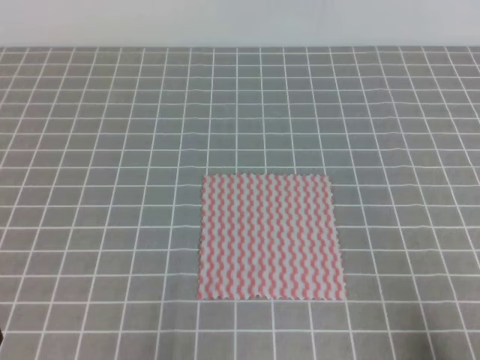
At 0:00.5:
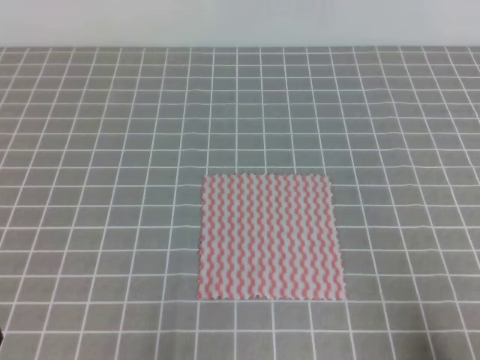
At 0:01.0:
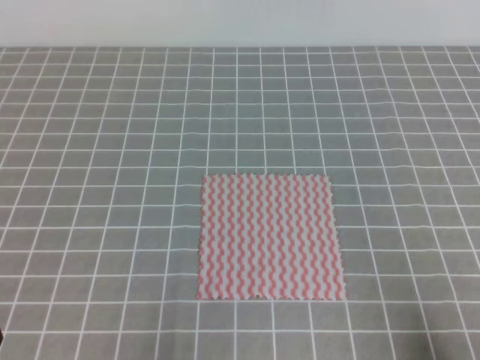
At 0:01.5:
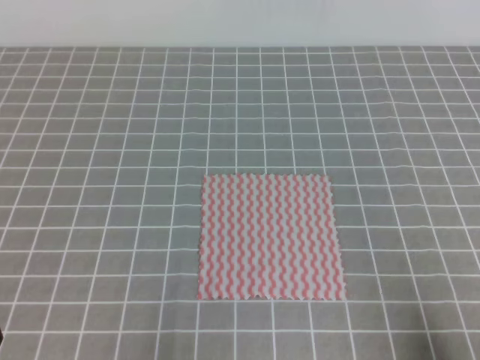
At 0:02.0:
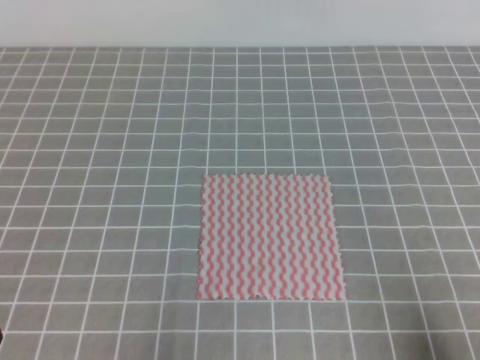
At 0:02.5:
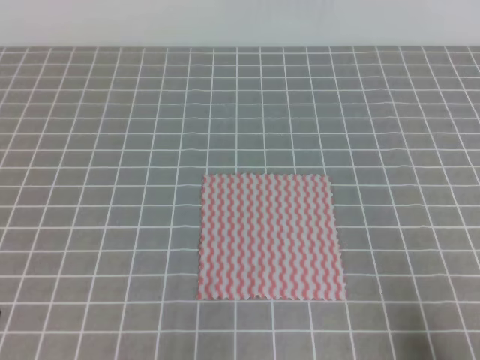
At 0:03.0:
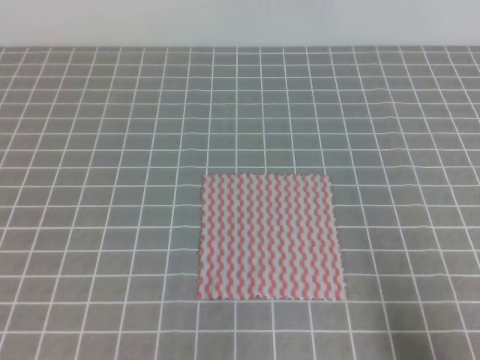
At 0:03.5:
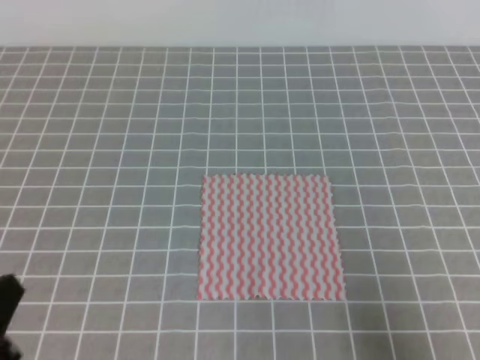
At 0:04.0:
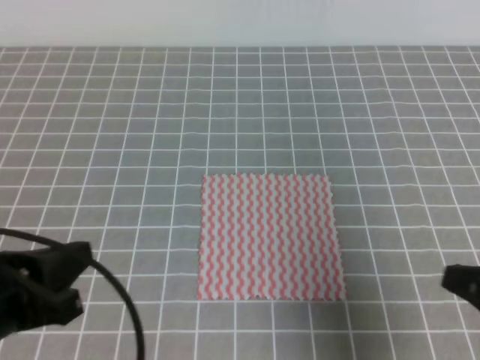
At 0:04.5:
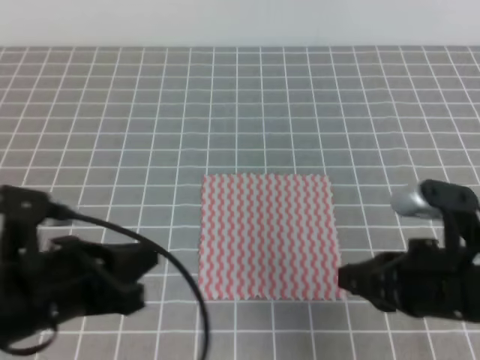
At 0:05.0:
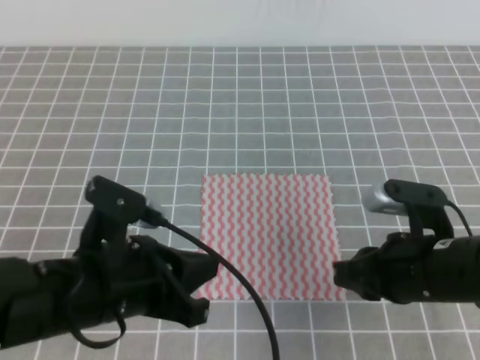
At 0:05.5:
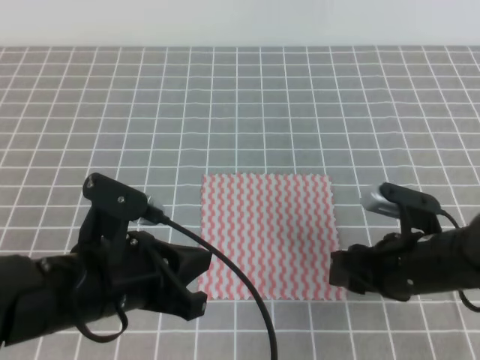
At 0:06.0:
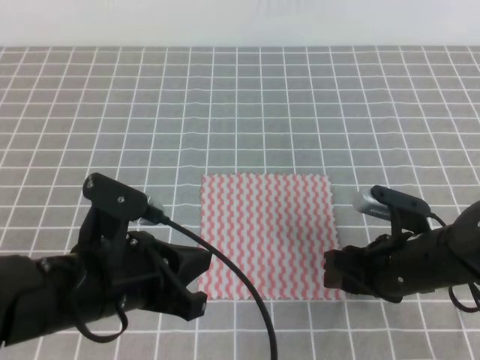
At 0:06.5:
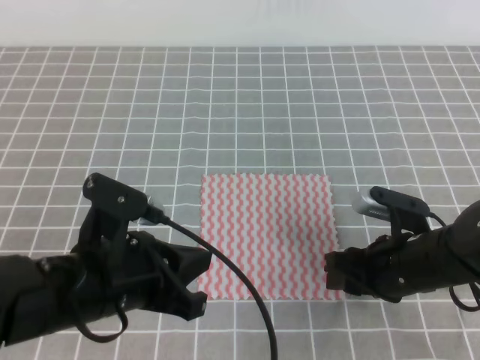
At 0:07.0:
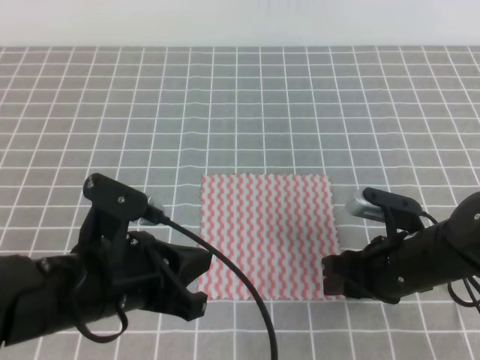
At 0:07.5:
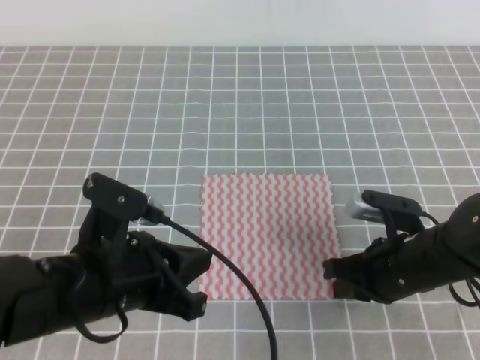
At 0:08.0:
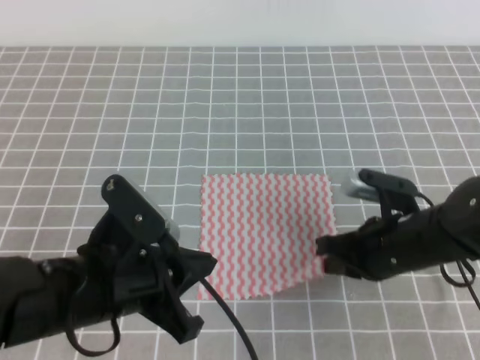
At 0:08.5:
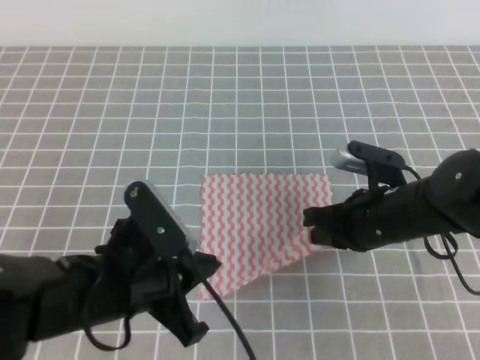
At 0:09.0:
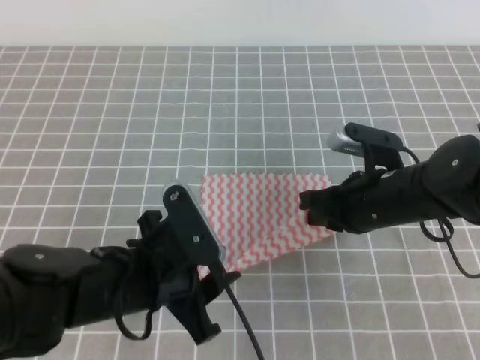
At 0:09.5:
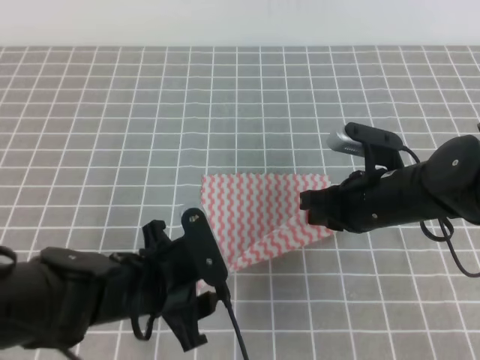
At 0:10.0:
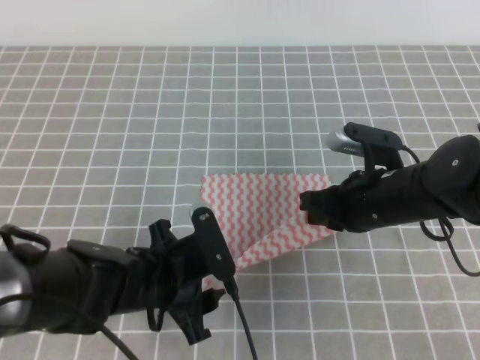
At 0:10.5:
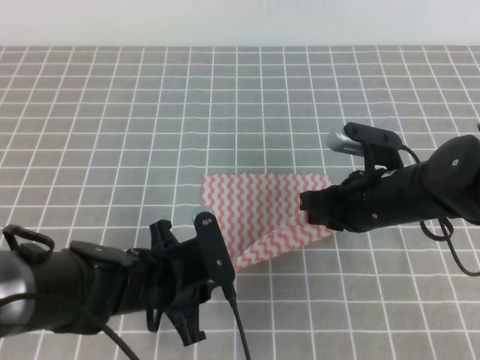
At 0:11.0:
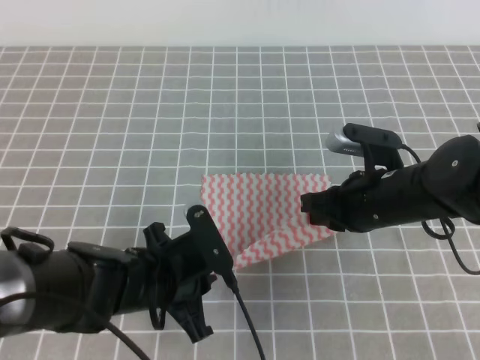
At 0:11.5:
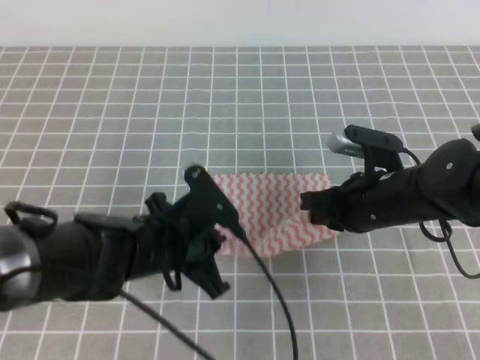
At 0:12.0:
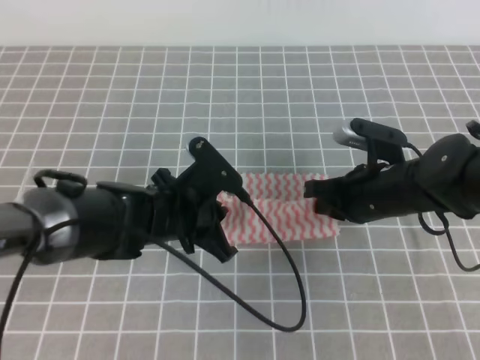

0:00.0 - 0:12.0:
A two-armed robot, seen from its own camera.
0:02.0 - 0:04.0: The left gripper goes about 10 cm upward and forward, while the right gripper travels forward and upward by approximately 10 cm.
0:04.0 - 0:06.0: The right gripper shifts roughly 20 cm forward, downward and to the left, and opens its fingers. The left gripper moves to the right and forward, approximately 10 cm.
0:06.0 - 0:08.0: The right gripper closes its fingers.
0:08.0 - 0:10.0: The left gripper is displaced downward by some 5 cm, and opens; the right gripper ends up some 5 cm from where it was.
0:10.0 - 0:12.0: The left gripper moves forward, about 5 cm, and closes.

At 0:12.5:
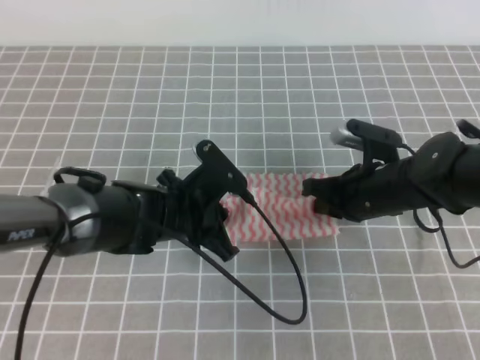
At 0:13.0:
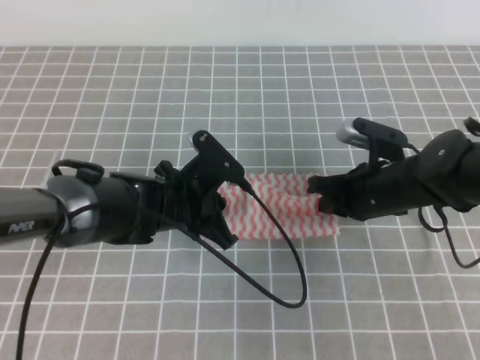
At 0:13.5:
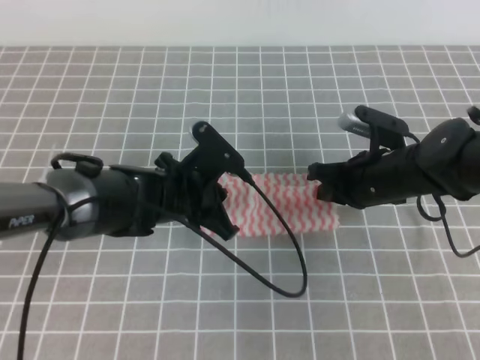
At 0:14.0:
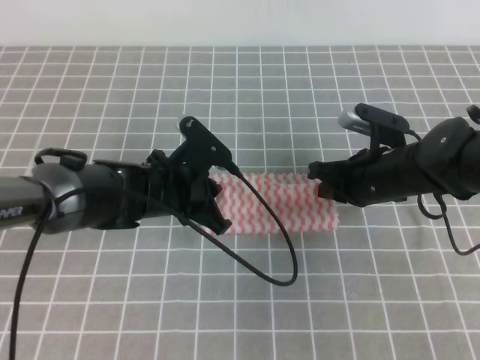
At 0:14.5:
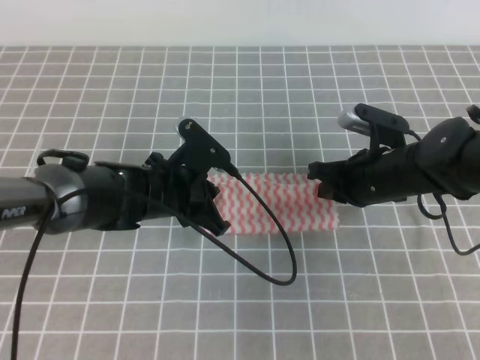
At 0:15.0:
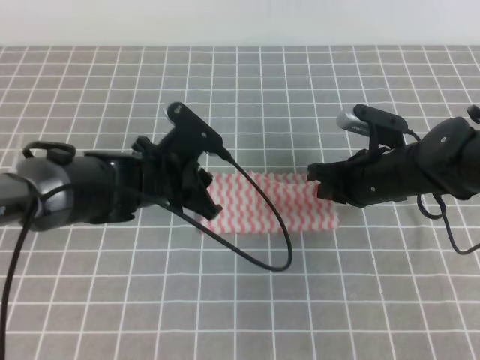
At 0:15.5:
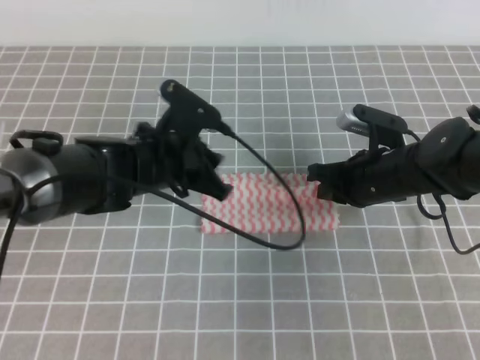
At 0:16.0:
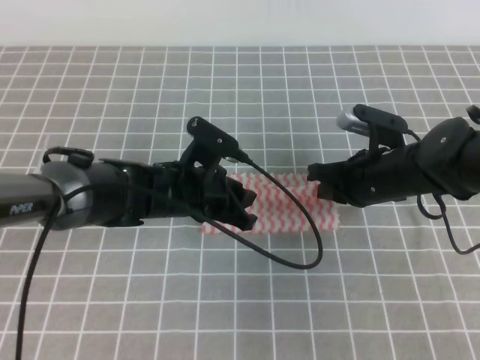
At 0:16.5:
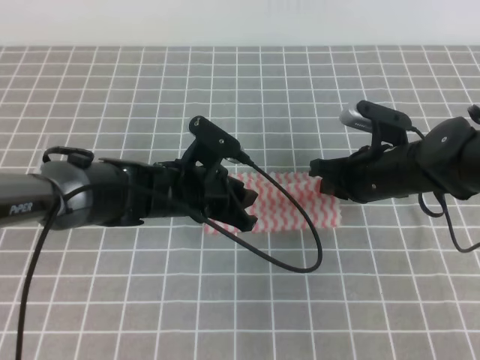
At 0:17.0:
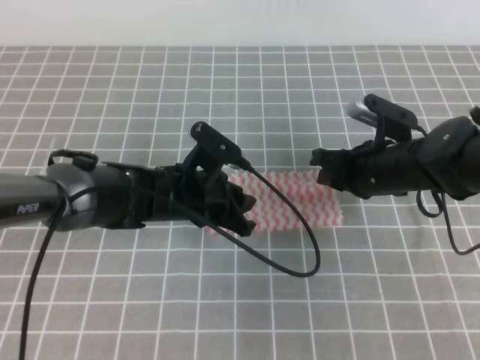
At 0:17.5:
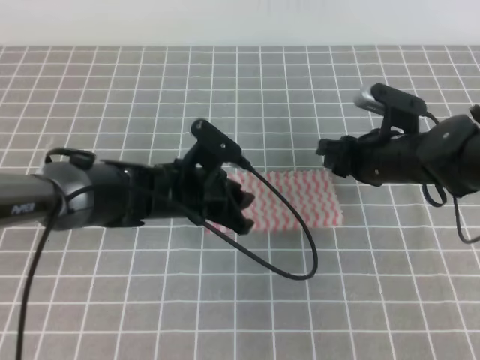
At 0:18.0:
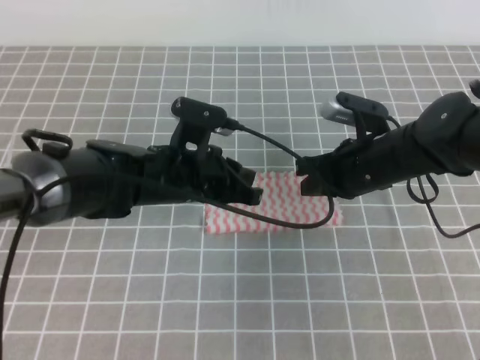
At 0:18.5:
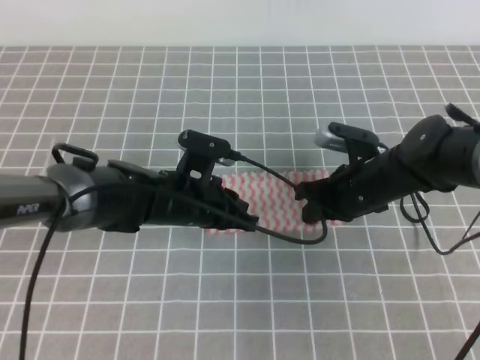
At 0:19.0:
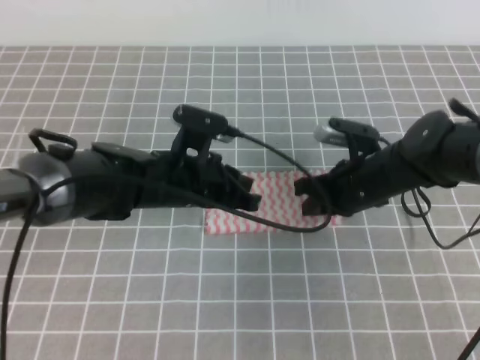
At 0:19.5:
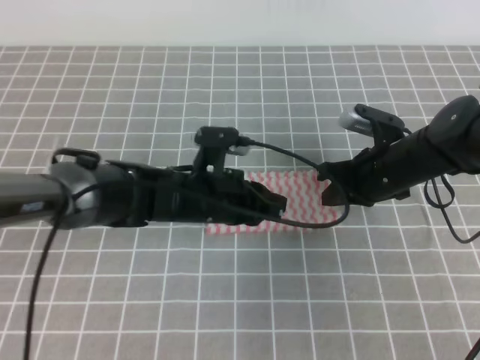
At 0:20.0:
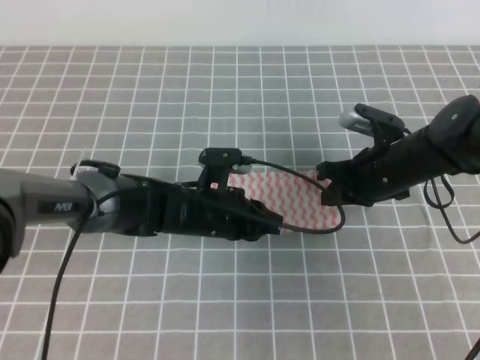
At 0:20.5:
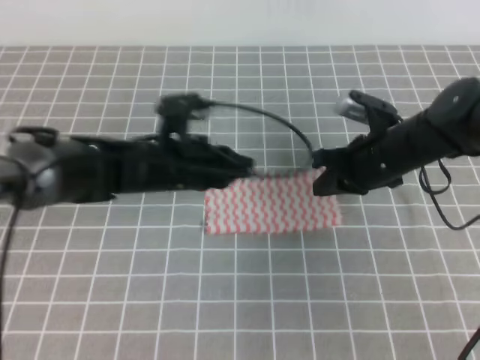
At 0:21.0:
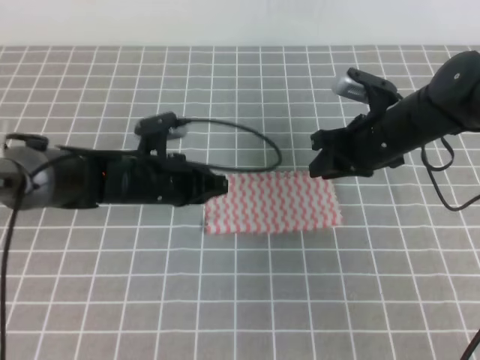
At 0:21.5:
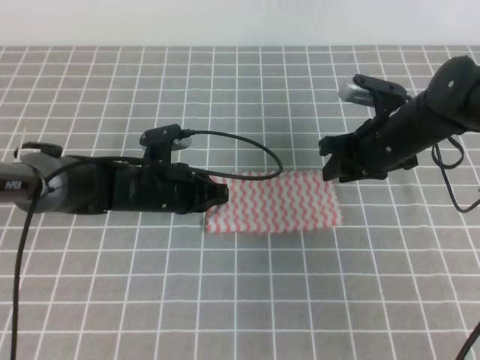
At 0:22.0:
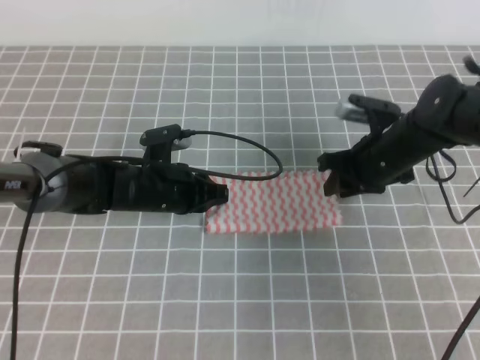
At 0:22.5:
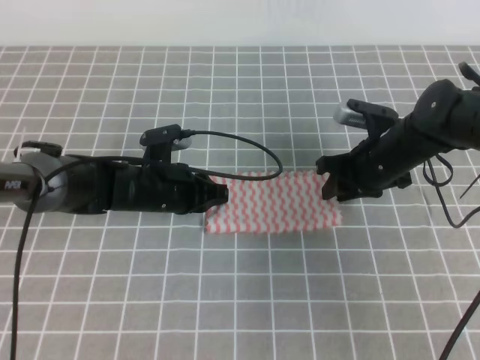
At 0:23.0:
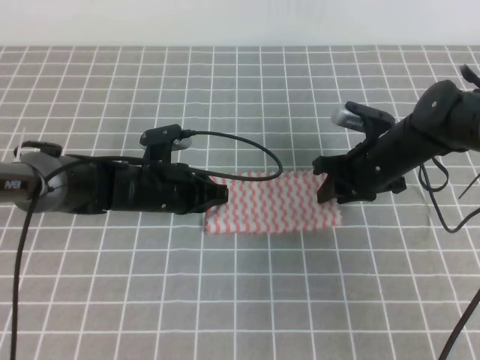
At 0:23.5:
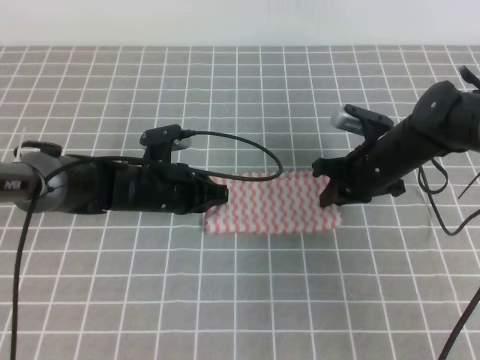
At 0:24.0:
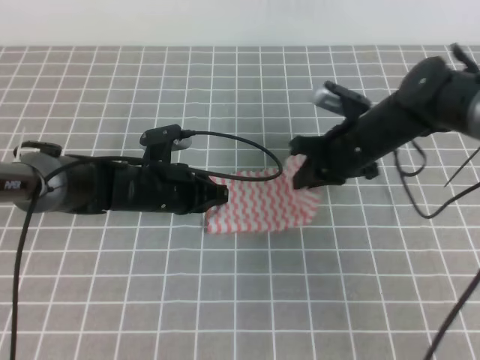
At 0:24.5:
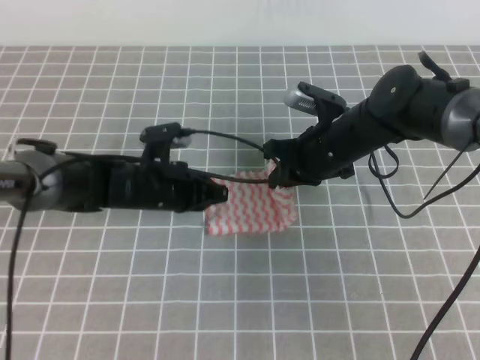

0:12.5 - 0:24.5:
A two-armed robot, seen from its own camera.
0:12.5 - 0:14.5: The grippers move only a little.
0:14.5 - 0:16.5: The left gripper opens up.
0:16.5 - 0:18.5: The left gripper closes up. The right gripper opens, then closes again.
0:20.5 - 0:22.5: The right gripper opens its fingers. The left gripper shifts about 5 cm downward.
0:22.5 - 0:24.5: The right gripper shifts roughly 5 cm to the left, and closes.

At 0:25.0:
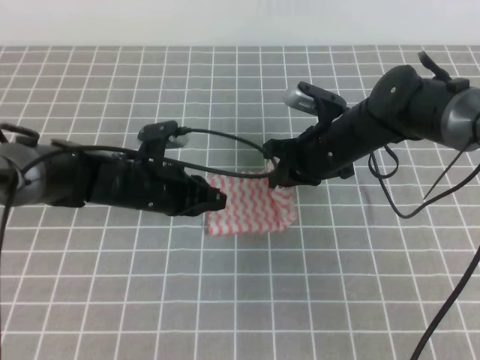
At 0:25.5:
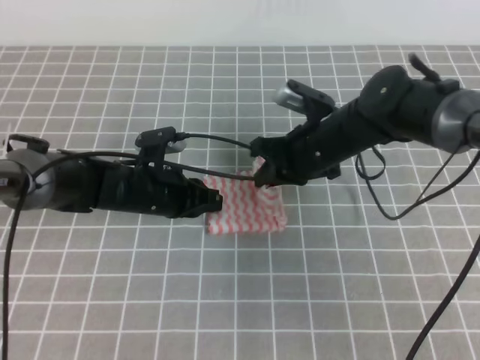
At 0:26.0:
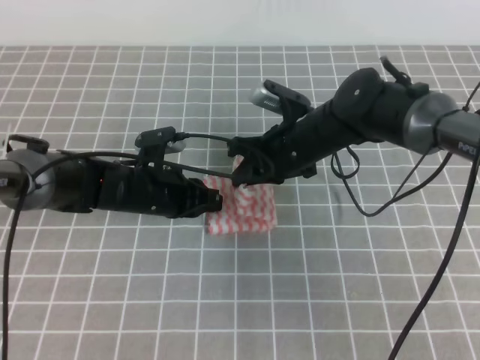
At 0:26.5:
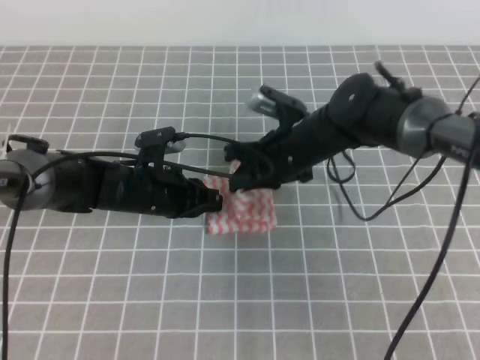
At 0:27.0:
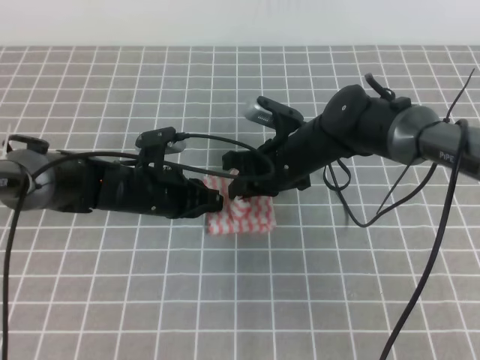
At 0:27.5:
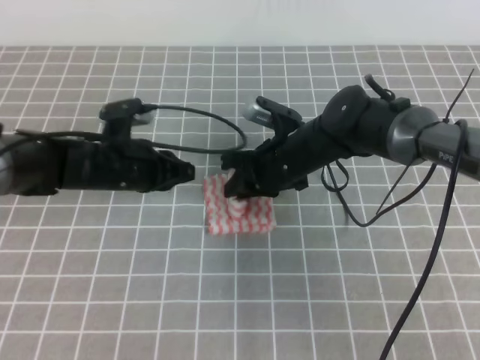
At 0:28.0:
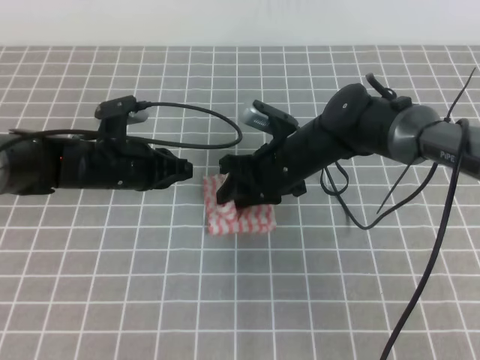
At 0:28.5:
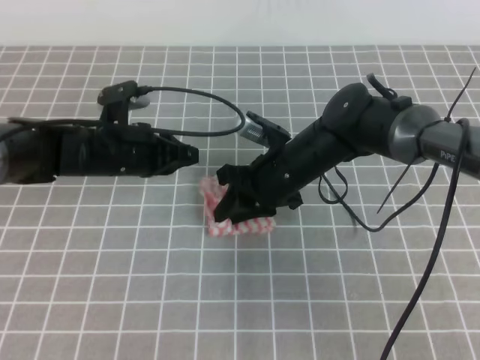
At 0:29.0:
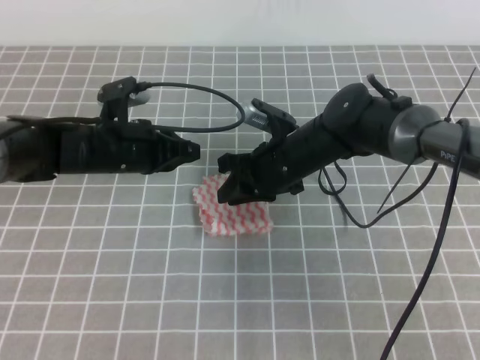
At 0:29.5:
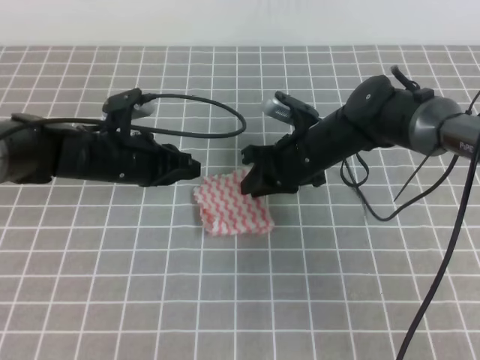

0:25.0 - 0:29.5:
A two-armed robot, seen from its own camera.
0:25.0 - 0:27.0: The right gripper moves to the left, roughly 5 cm.
0:27.0 - 0:29.5: The right gripper opens its fingers, while the left gripper changes place by some 5 cm.
